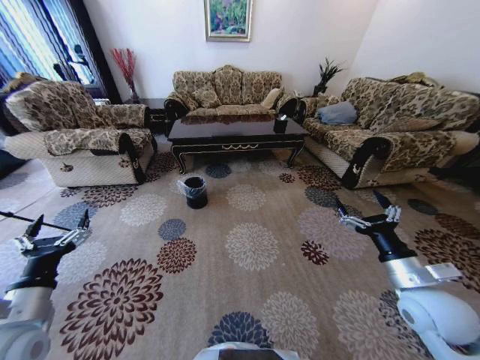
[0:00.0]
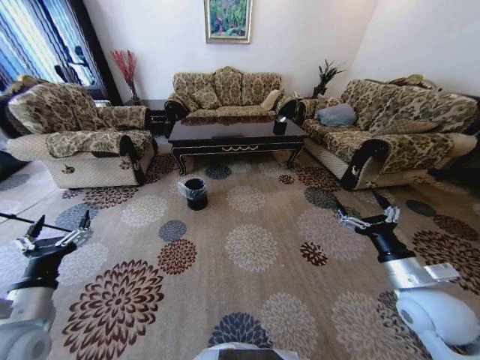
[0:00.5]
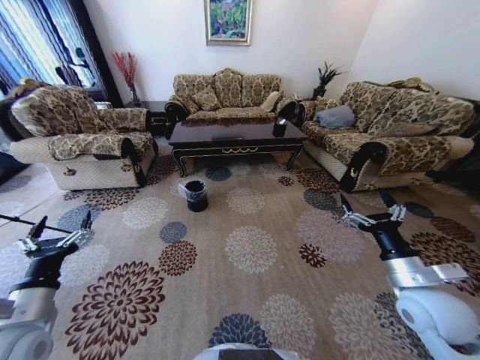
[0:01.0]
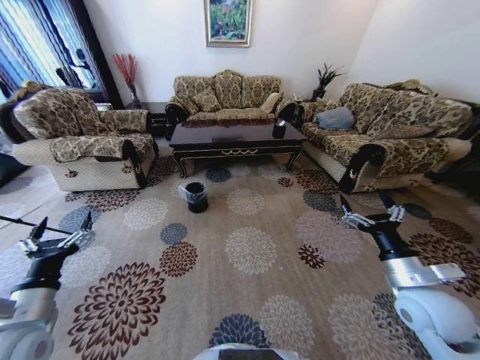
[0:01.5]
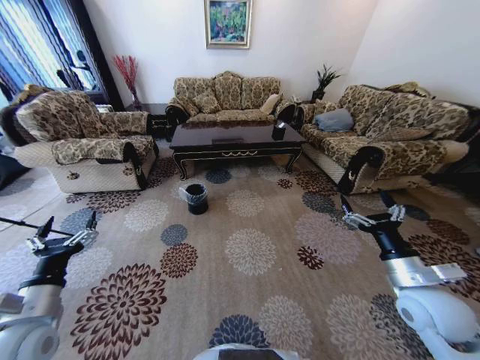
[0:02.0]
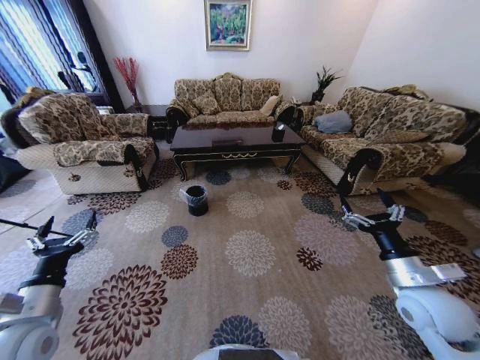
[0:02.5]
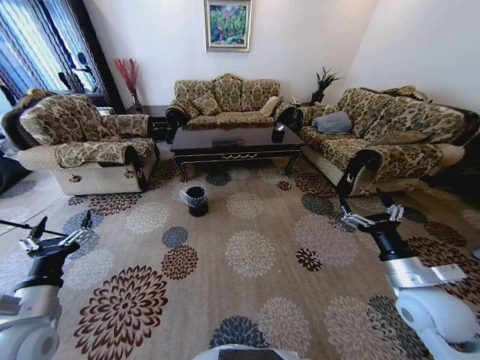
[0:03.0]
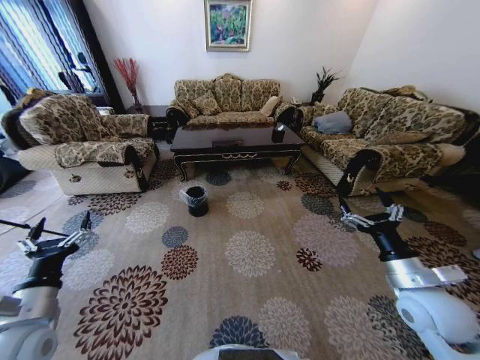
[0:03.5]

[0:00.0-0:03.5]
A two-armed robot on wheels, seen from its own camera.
Task of the whole recording: Move to the front of the table and pick up the trash from the floor, then place it into the trash bin.
0:02.0 to 0:03.5: The two grippers keep their place.

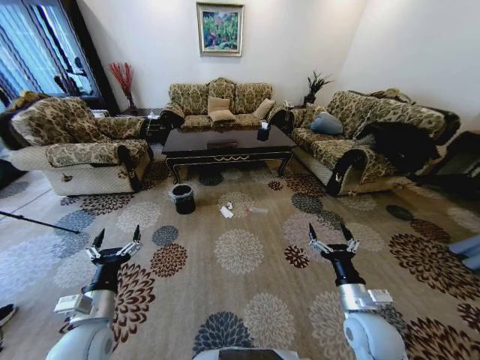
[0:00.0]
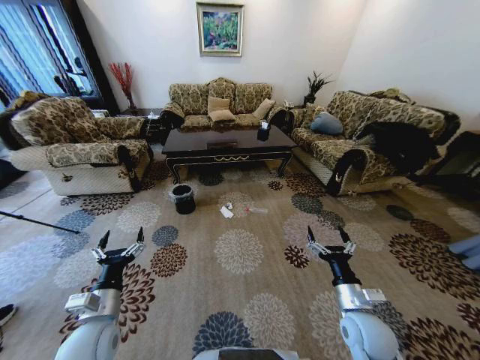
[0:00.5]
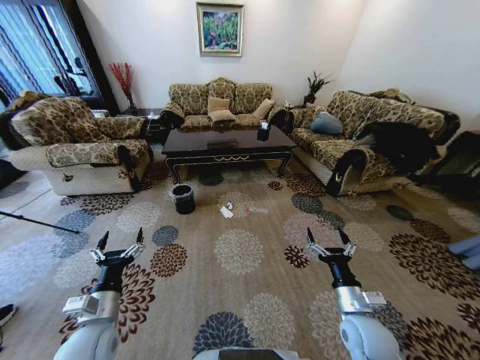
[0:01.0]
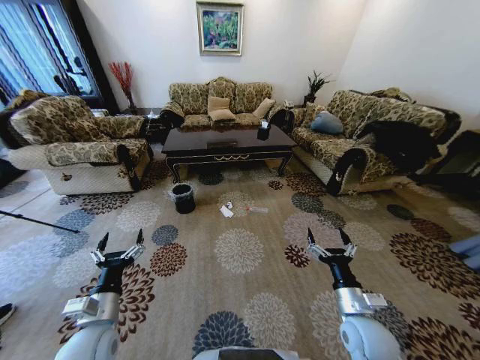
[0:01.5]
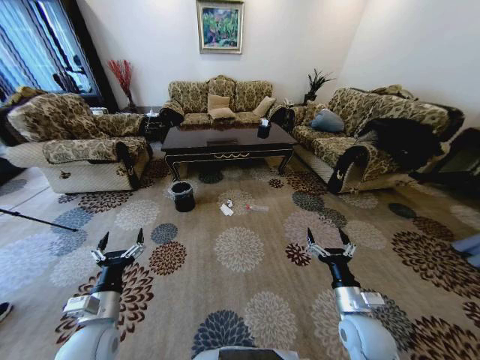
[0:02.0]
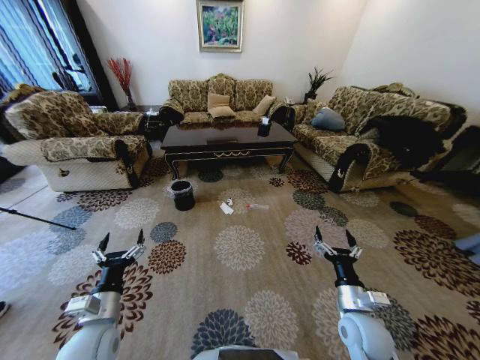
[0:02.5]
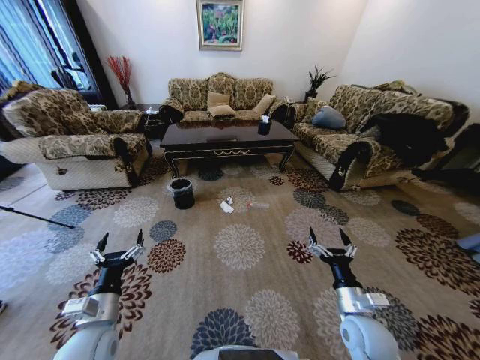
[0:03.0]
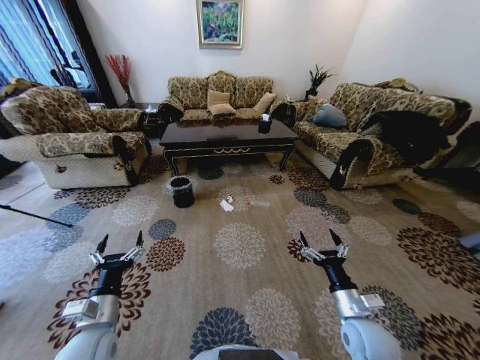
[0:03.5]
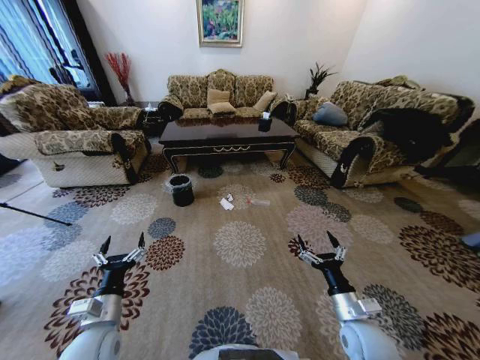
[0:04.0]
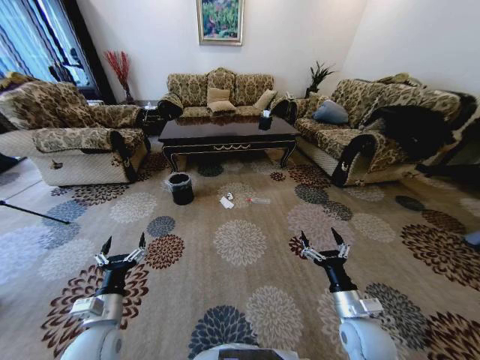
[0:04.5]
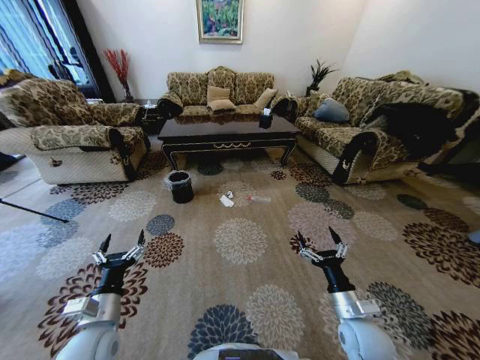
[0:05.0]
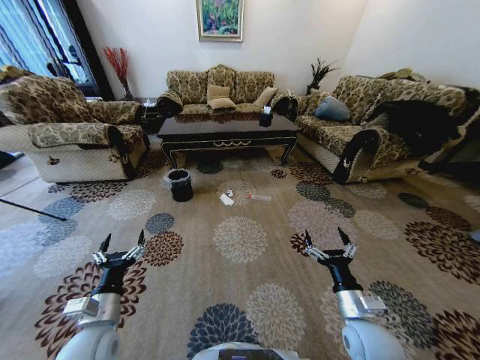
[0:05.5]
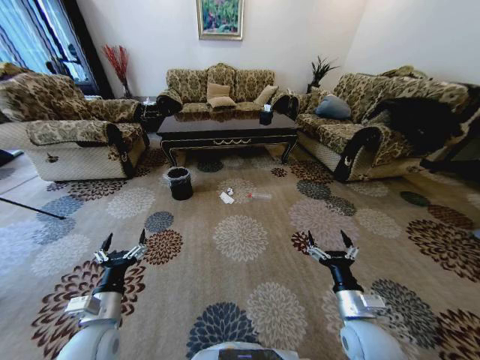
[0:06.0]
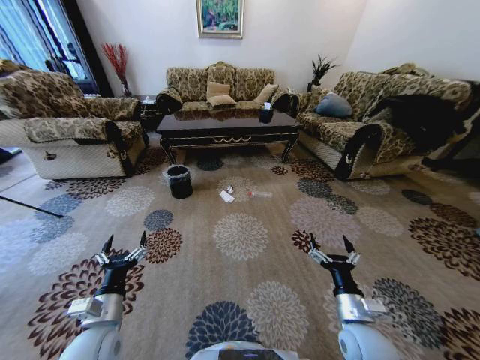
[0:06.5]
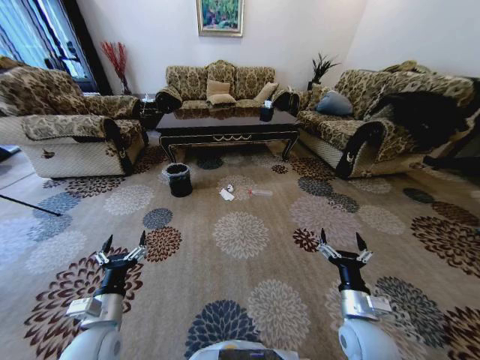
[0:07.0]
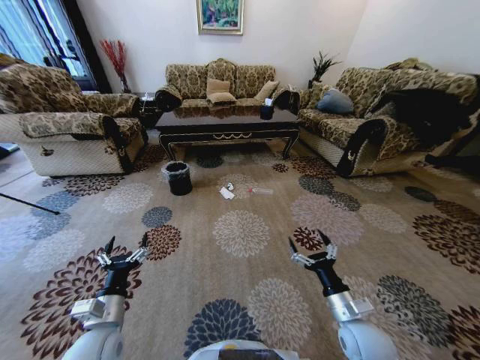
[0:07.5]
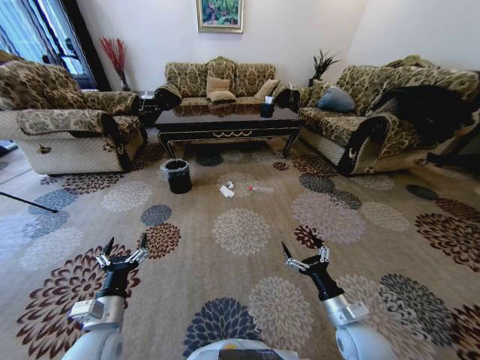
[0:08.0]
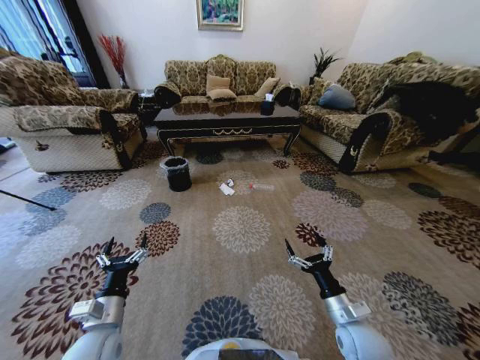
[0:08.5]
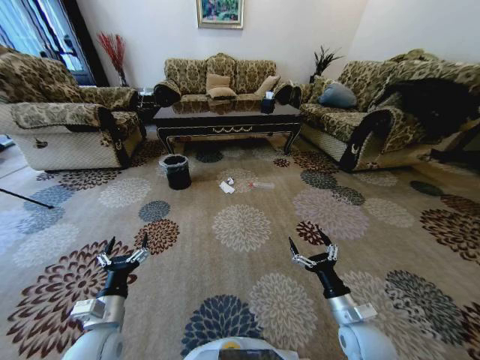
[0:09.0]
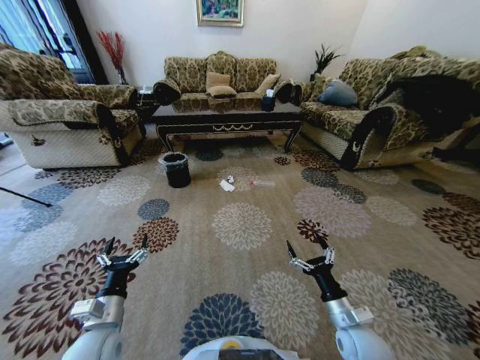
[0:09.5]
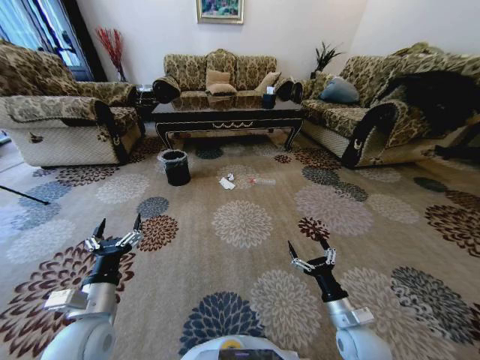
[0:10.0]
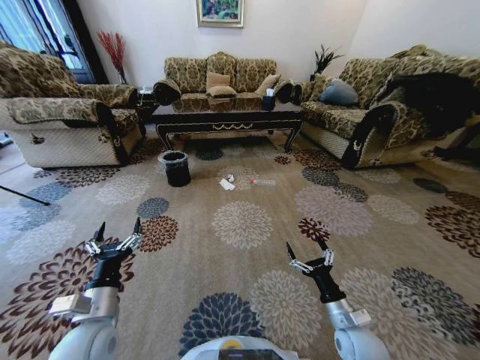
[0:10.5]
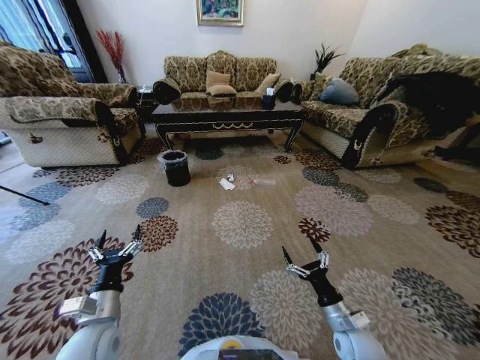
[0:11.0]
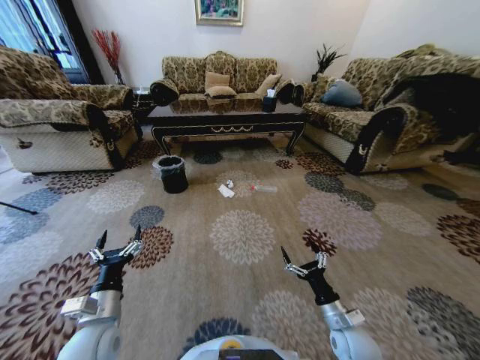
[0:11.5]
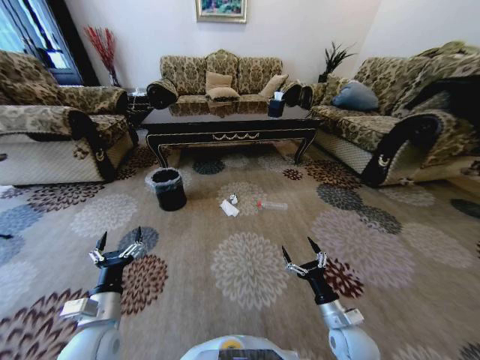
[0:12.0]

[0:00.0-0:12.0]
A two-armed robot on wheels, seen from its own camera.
Task of the whole recording: Move to the front of the table and pick up the trash from the floor, then place it into the trash bin.
0:08.0 to 0:10.0: The left gripper is displaced upward by some 5 cm.

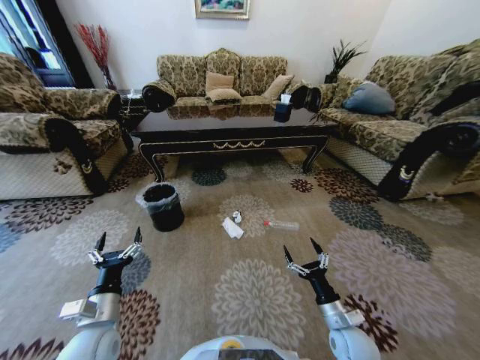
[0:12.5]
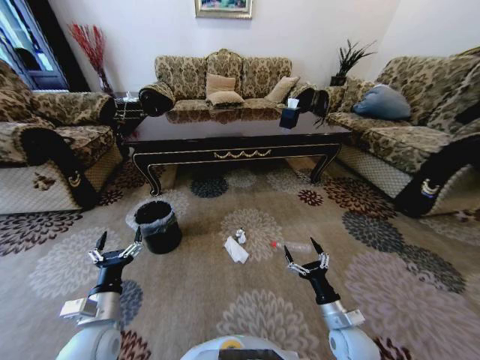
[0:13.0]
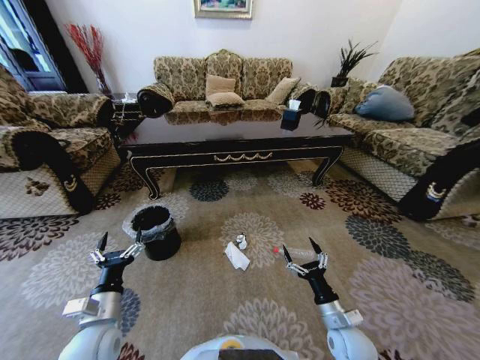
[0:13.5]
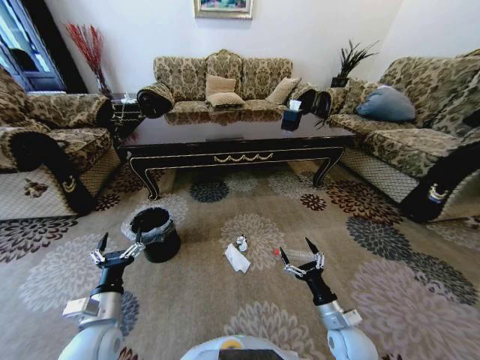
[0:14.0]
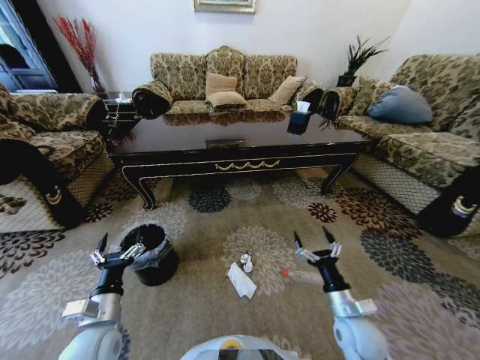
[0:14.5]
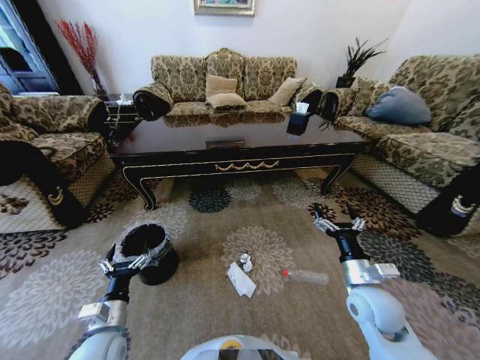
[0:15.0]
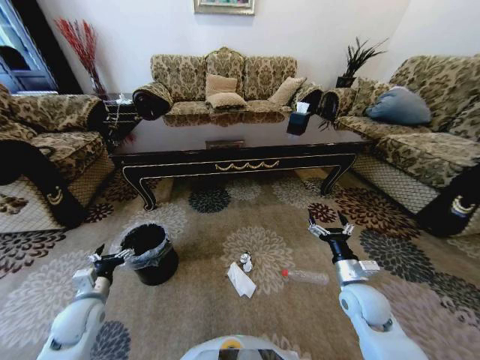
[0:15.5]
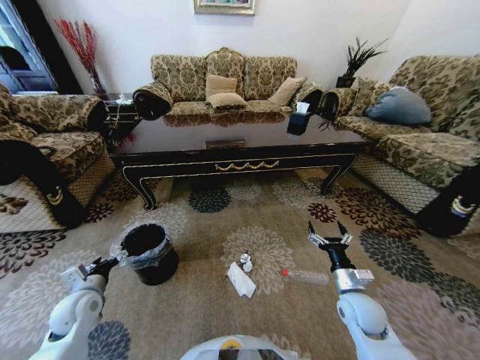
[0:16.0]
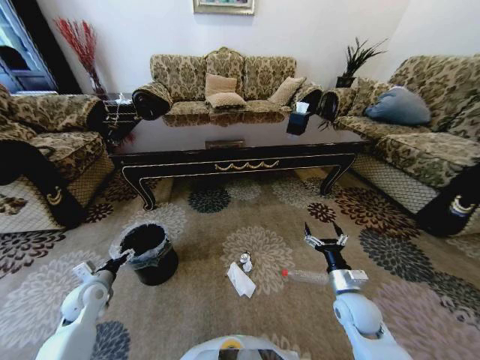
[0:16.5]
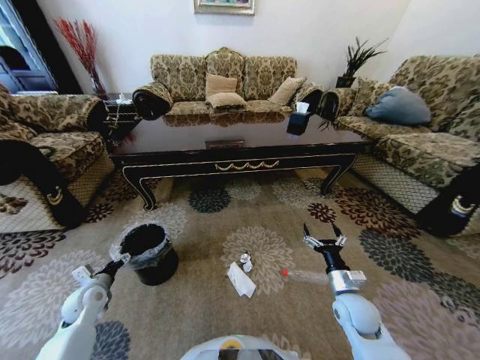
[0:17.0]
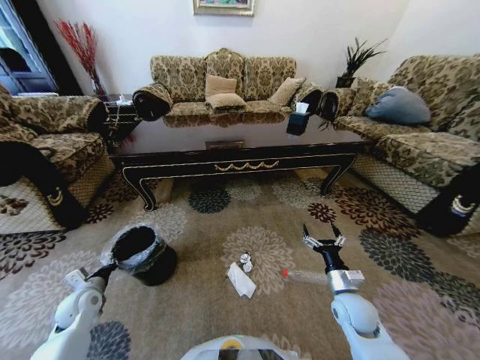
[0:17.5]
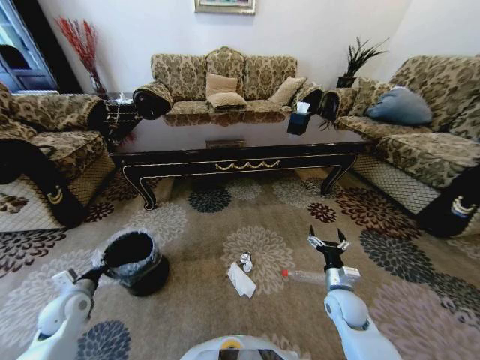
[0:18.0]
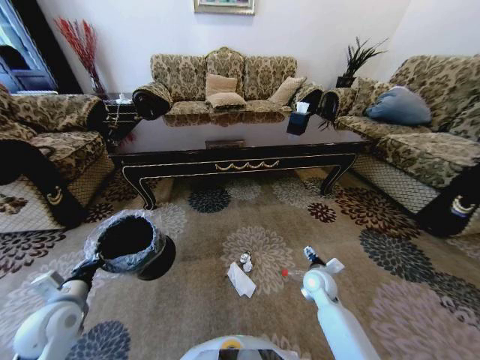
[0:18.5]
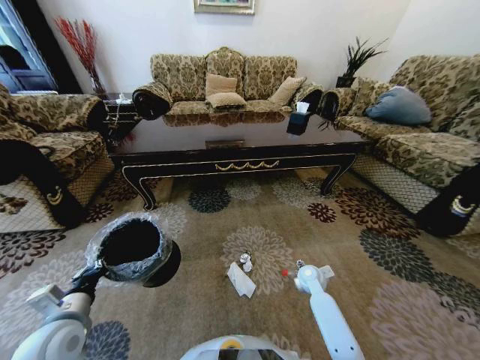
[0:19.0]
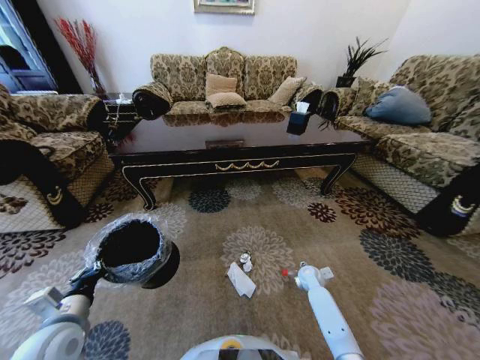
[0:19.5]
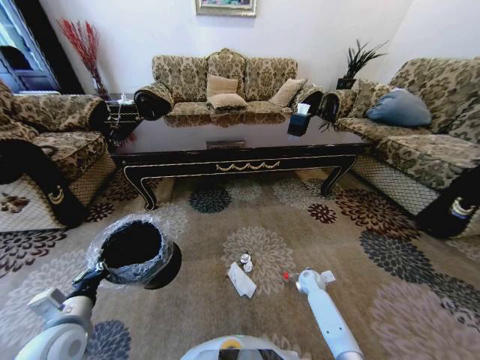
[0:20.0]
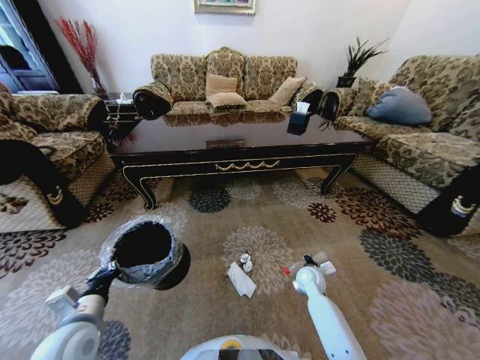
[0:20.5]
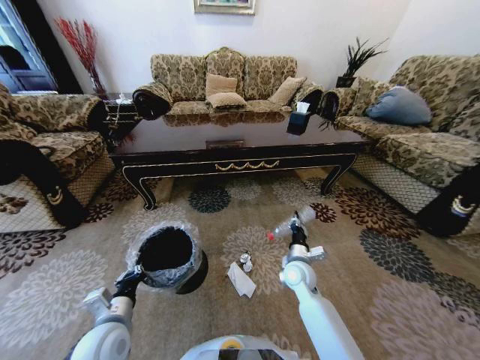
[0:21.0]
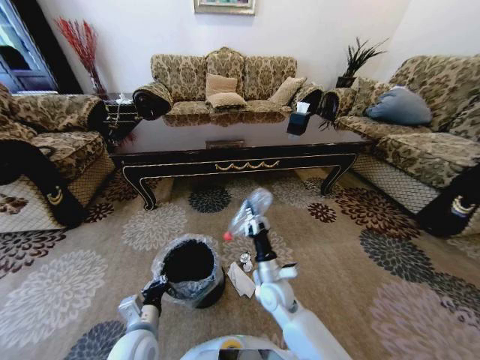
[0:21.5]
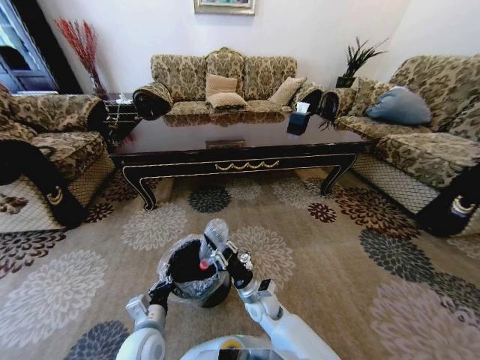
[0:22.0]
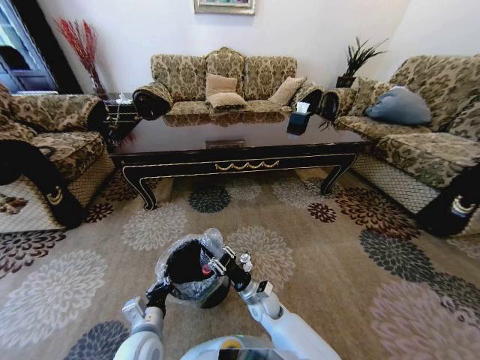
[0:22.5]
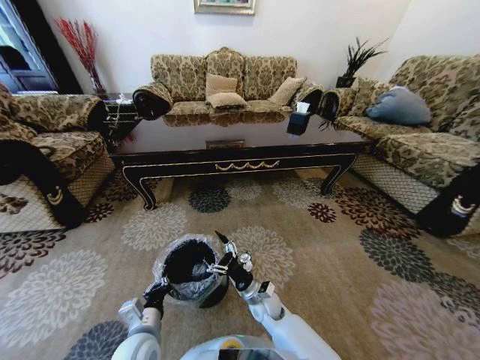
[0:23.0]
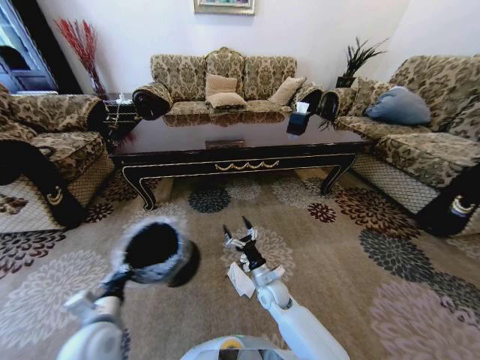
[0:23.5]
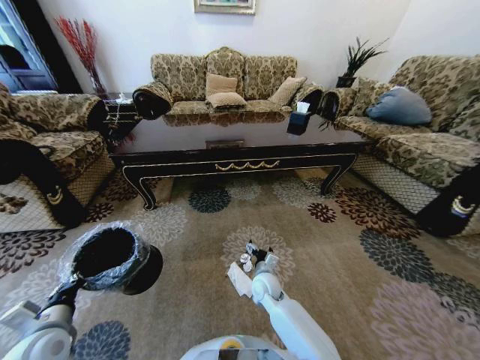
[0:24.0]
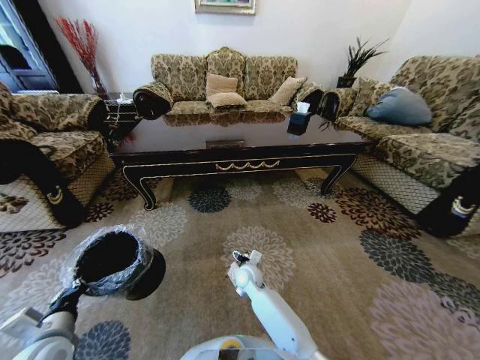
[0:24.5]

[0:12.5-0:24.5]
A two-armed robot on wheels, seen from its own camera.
Task of the whole recording: Move to the front of the table and pick up the trash from the floor, then place it into the trash bin.
0:14.5 to 0:16.5: The right gripper travels forward by about 5 cm, and goes upward and returns, roughly 10 cm each way. Meanwhile the left gripper goes approximately 20 cm to the left, forward and downward.
0:16.5 to 0:18.5: The left gripper goes about 10 cm upward and backward, and closes up. Meanwhile the right gripper heads forward, covering about 10 cm.
0:18.5 to 0:20.5: The left gripper shifts roughly 5 cm to the right. The right gripper heads downward, covering approximately 5 cm, and closes up.
0:20.5 to 0:22.5: The left gripper is displaced to the right and downward by approximately 15 cm; the right gripper shifts some 20 cm to the left.
0:22.5 to 0:24.5: The left gripper goes some 15 cm to the left; the right gripper shifts approximately 10 cm forward, and opens.
